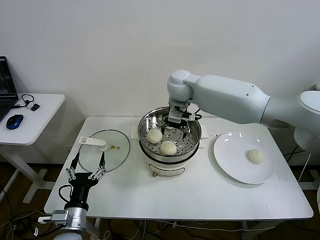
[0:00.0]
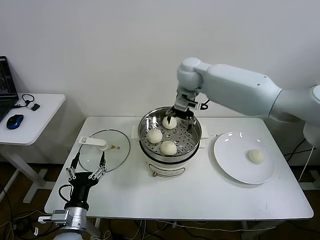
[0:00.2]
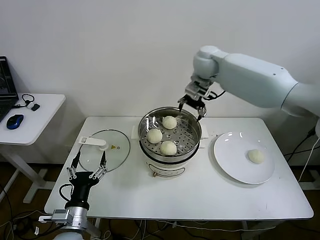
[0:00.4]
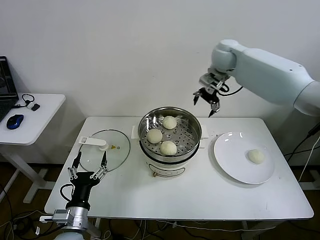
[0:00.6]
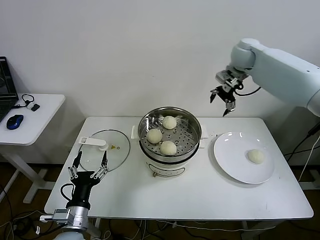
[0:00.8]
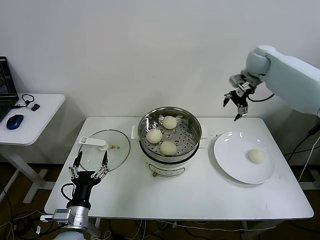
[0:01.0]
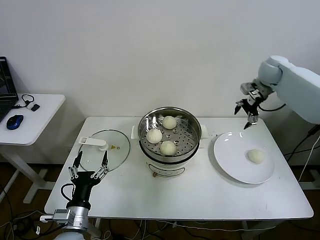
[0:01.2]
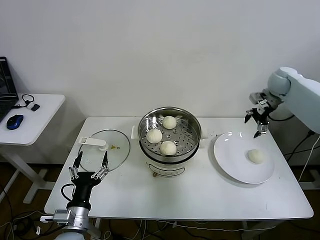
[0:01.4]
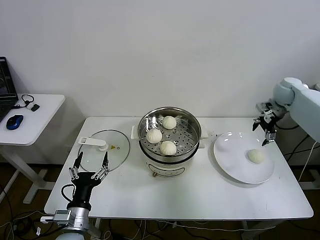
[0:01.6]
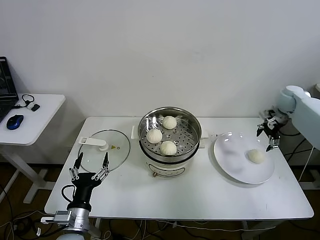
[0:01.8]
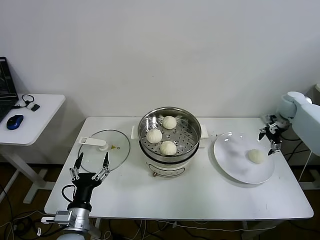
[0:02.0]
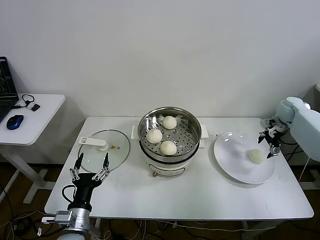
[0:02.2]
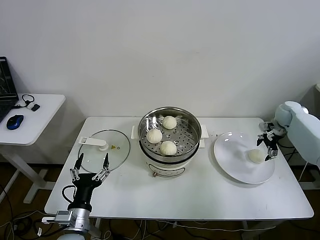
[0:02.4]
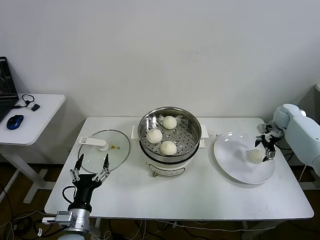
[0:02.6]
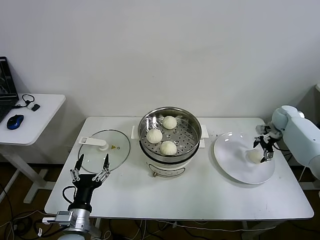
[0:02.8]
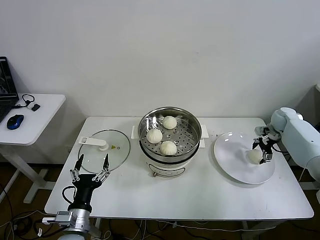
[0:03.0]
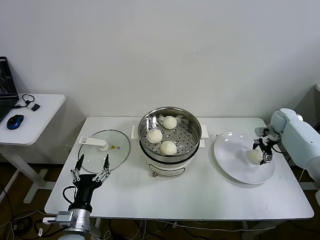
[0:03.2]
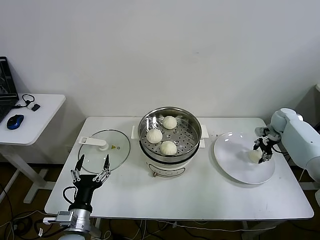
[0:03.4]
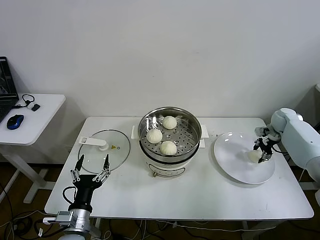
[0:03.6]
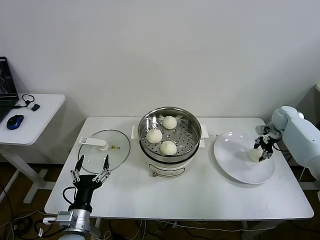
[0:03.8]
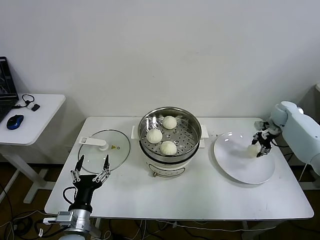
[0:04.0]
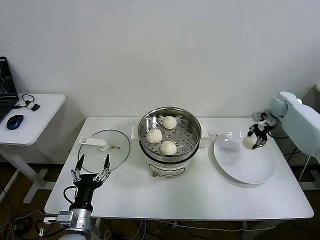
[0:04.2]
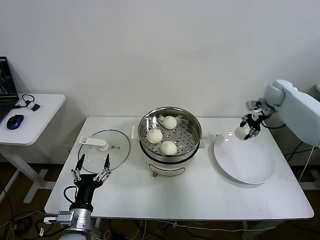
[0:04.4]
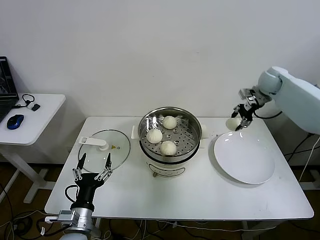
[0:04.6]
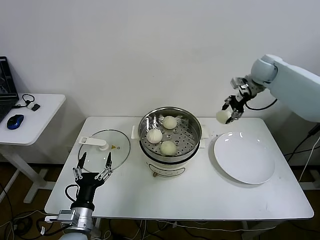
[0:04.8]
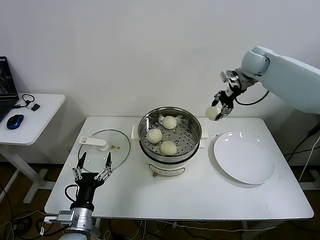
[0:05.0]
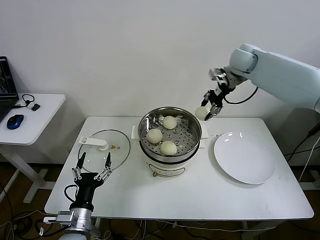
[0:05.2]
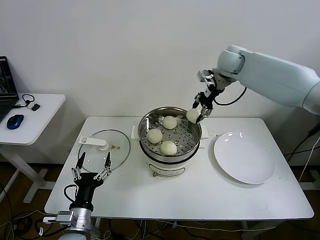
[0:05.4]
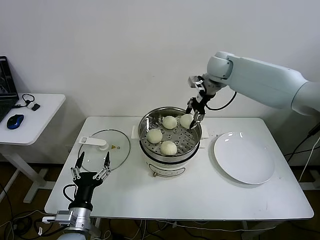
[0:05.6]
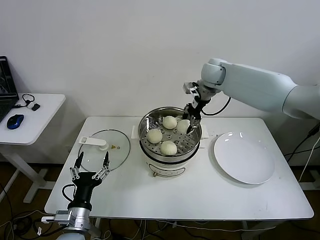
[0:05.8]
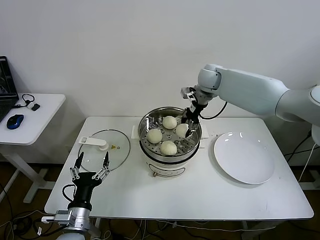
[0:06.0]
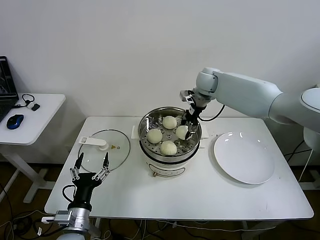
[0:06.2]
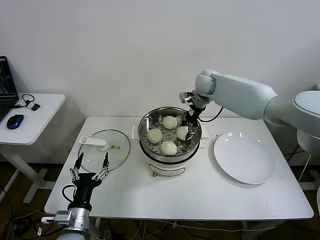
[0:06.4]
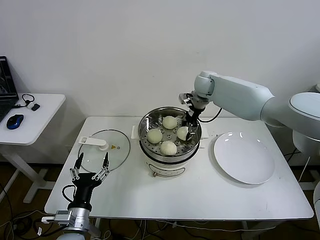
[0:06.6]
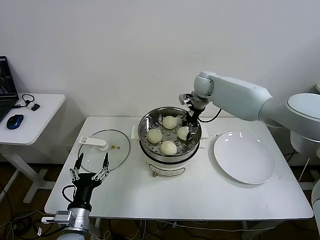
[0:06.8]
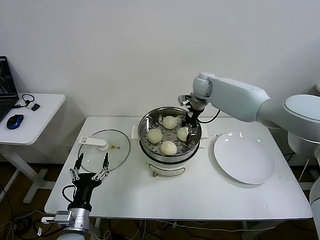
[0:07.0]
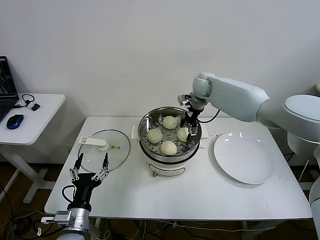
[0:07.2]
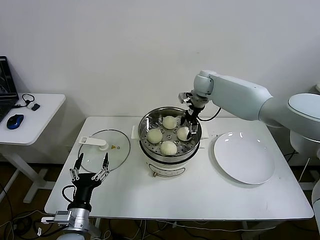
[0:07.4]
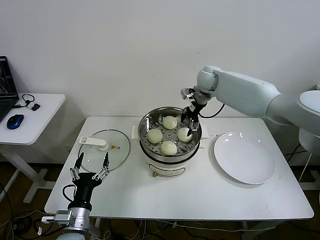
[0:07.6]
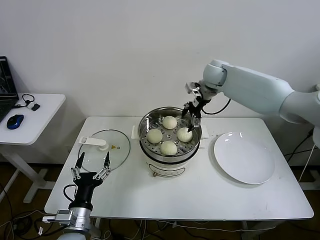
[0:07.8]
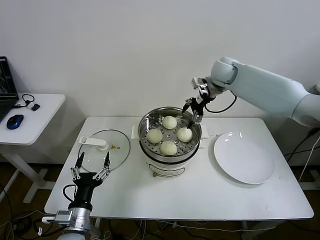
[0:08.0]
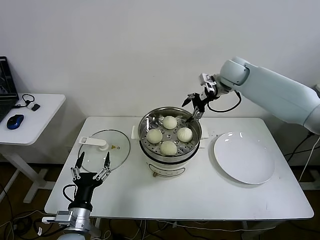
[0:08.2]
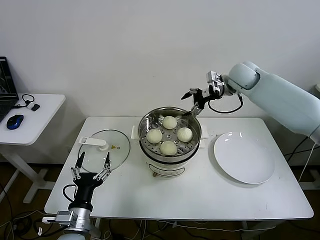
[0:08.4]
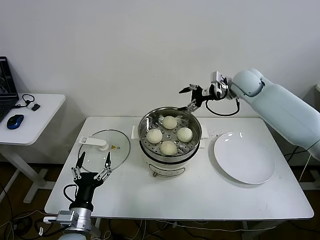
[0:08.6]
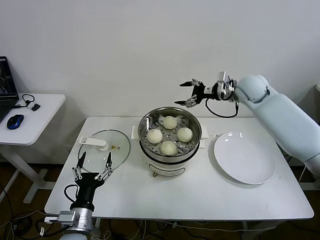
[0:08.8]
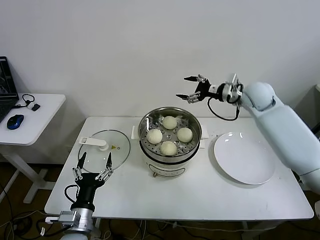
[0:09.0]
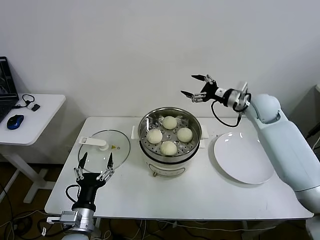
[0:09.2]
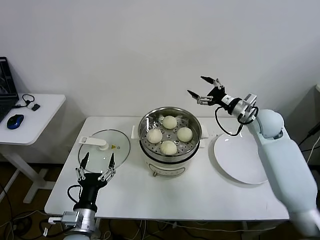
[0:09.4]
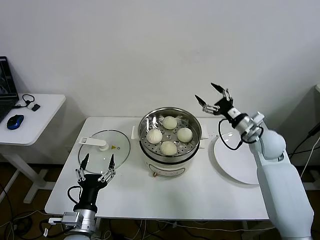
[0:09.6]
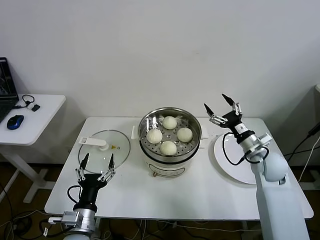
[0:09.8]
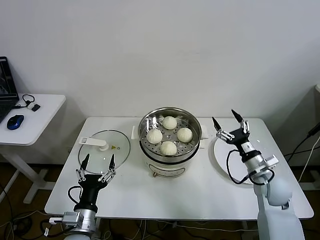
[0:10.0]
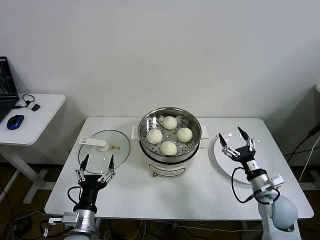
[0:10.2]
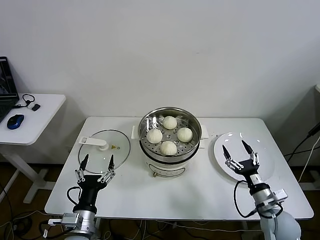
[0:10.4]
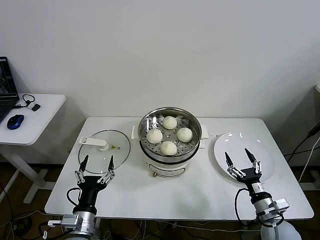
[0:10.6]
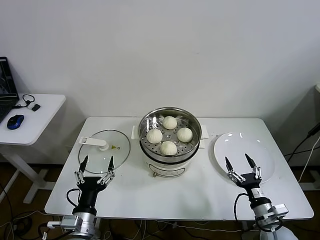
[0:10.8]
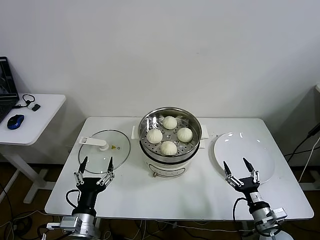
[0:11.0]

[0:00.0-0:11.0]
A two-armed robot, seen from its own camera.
Task of the whole recording: take steamed baozi put them in steamer.
Step, 0:00.0 to 0:03.6: Grasp the baozi in the plate with right gripper.
Step, 0:03.8 to 0:07.2: Place the baozi on the steamer with right gripper.
0:00.0 to 0:01.6: The right gripper shifts about 40 cm to the right.
0:01.6 to 0:03.2: The right gripper goes approximately 15 cm downward.
0:03.2 to 0:04.8: The right gripper travels upward and to the left by about 25 cm, and closes.
0:04.8 to 0:06.2: The right gripper shifts approximately 20 cm to the left.
0:06.2 to 0:07.8: The right gripper opens up.
0:07.8 to 0:09.4: The right gripper moves backward, to the right and downward, about 20 cm.
0:09.4 to 0:11.0: The right gripper moves backward and downward, some 40 cm.

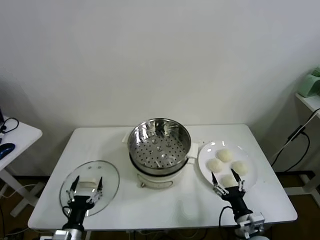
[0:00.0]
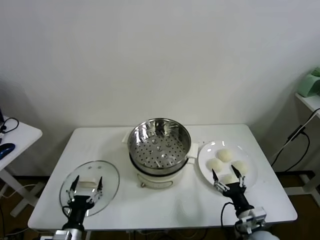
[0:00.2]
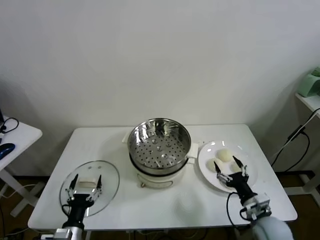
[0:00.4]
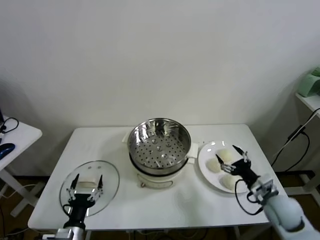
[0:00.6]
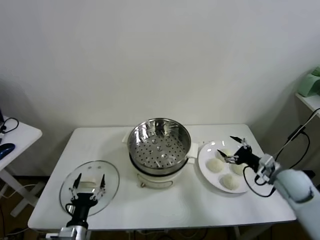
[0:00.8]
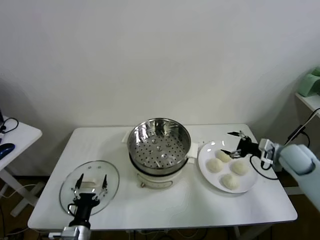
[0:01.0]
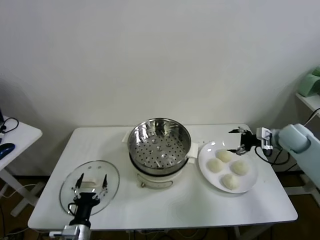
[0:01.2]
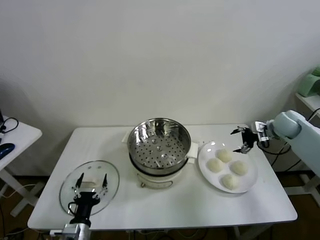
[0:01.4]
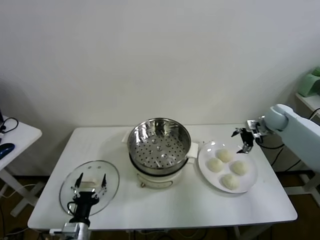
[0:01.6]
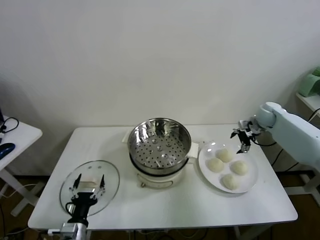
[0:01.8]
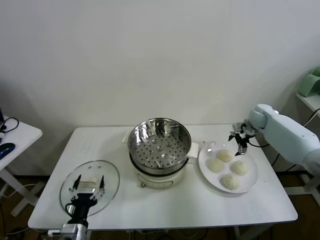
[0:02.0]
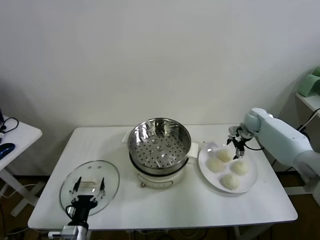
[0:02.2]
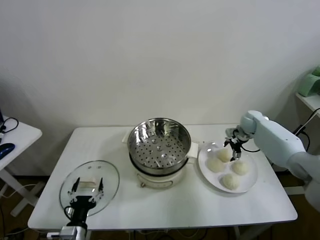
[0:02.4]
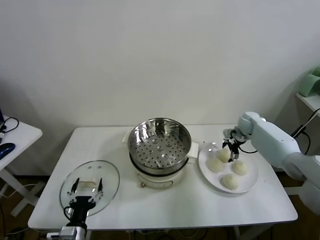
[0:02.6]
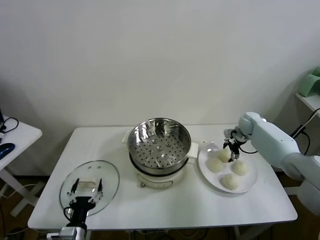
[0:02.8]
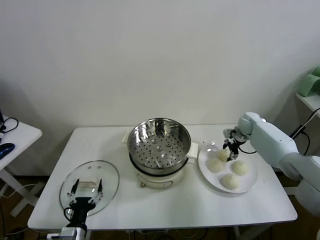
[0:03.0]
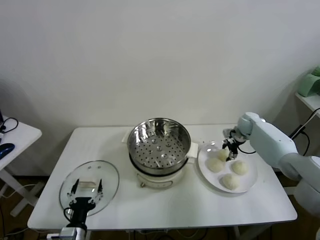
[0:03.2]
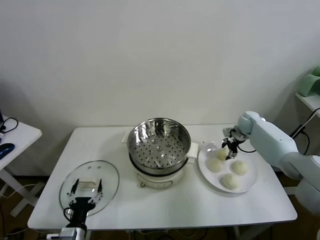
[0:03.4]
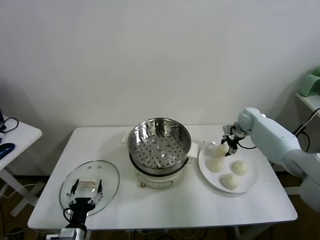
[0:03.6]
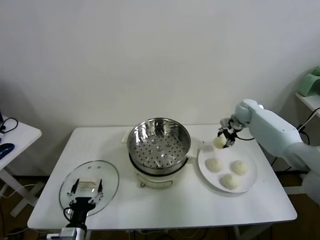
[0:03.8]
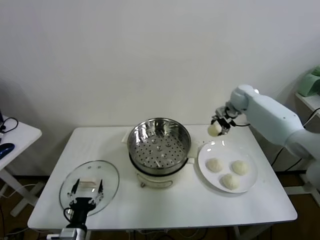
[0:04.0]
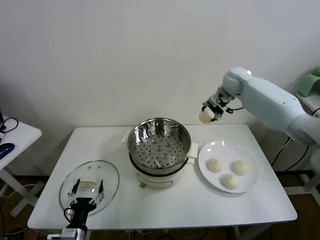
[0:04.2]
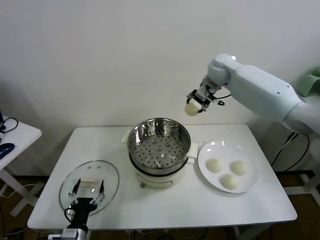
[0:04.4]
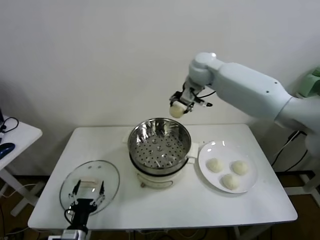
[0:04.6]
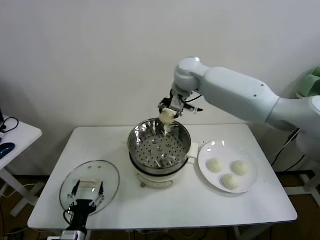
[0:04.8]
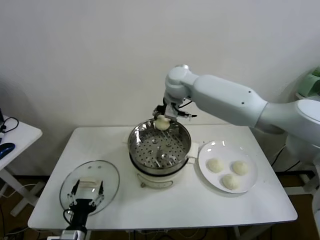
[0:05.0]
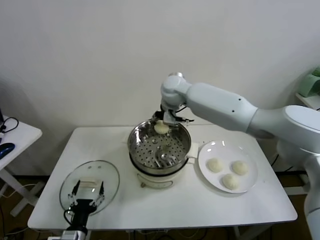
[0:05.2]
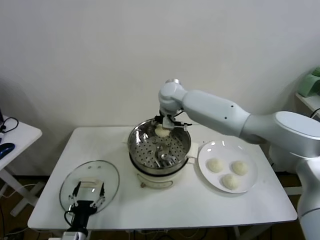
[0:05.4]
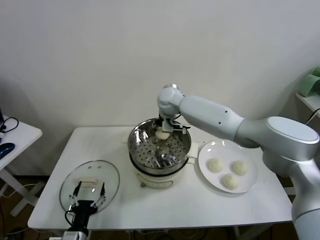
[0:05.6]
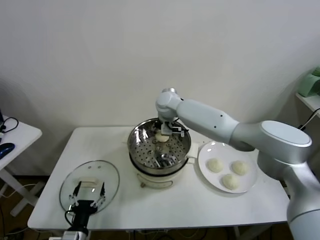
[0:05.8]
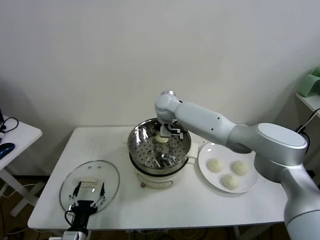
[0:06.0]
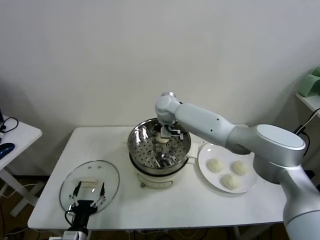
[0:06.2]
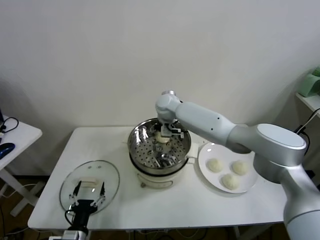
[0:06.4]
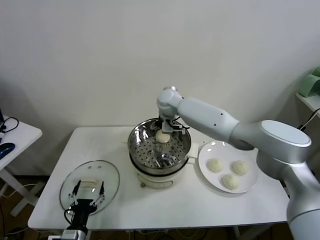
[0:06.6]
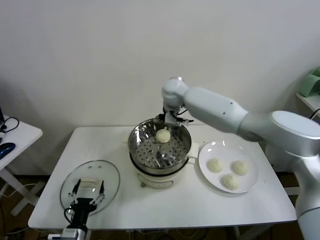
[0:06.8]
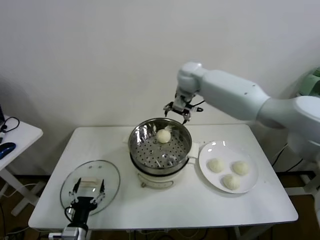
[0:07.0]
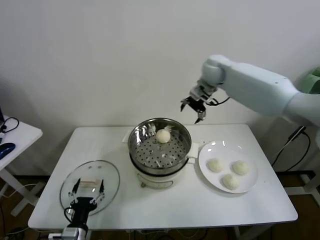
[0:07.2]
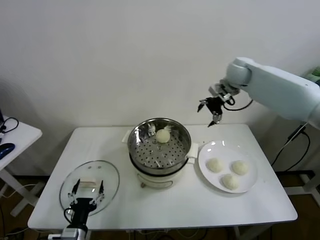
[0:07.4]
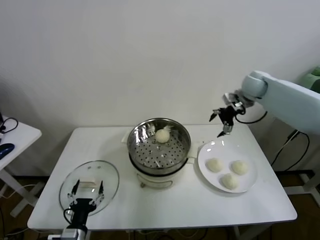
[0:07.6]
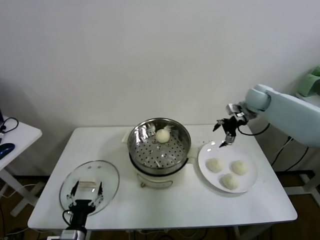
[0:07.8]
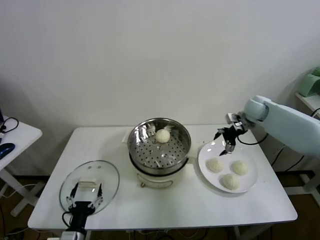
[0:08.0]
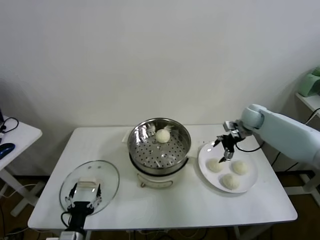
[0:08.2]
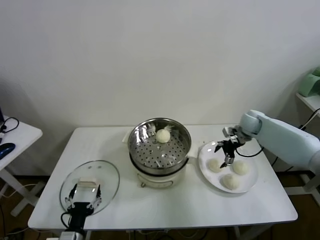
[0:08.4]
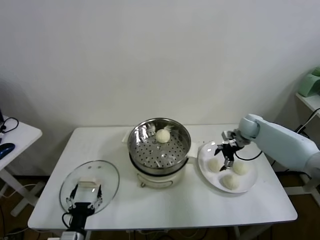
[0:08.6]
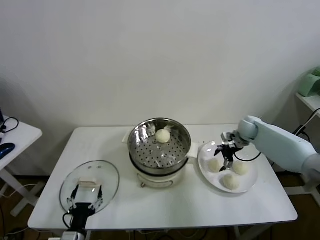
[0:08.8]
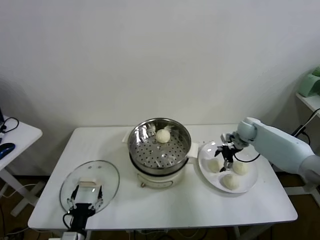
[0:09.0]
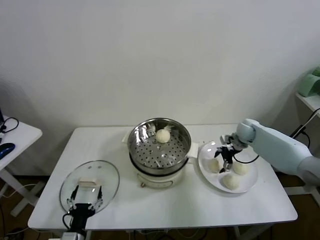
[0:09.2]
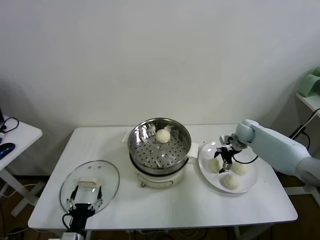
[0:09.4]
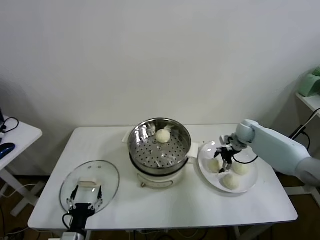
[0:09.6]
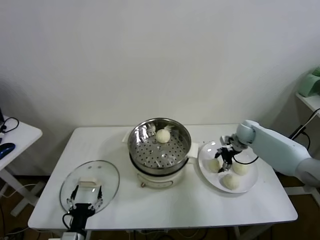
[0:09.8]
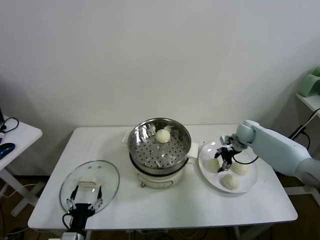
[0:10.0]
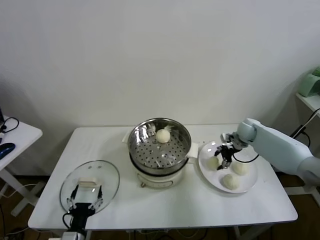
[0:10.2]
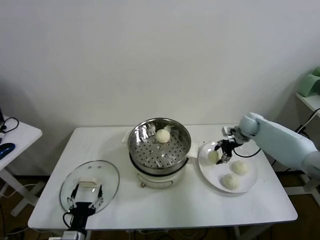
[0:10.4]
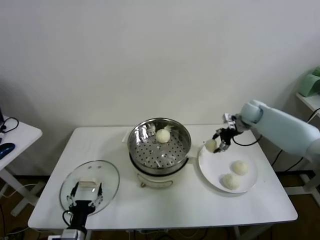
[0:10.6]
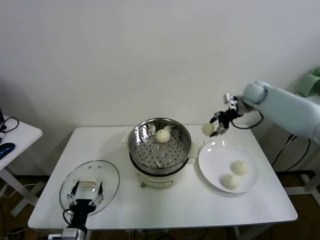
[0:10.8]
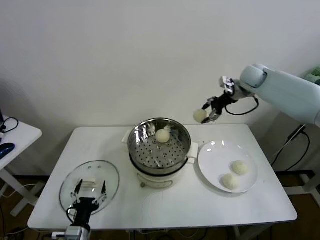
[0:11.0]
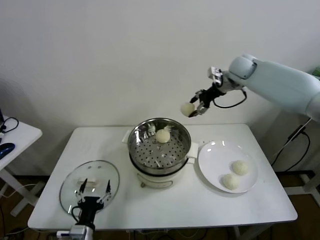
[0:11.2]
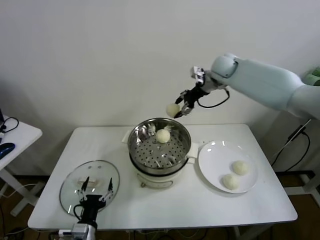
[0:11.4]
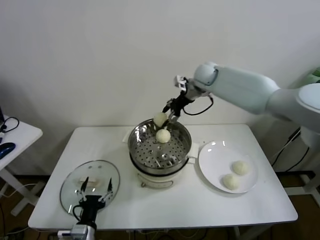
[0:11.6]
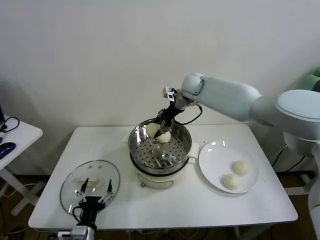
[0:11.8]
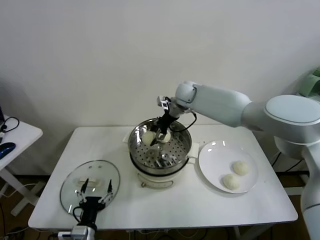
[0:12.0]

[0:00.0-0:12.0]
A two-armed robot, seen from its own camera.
Task of the whole recording: take steamed baozi put them in steamer.
Step, 0:00.0 to 0:02.8: Grasp the baozi in the plate with right gripper.
Step, 0:03.0 to 0:06.4: Place the baozi on the steamer with right gripper.
Step, 0:06.6 to 0:09.6: Grasp the baozi in the plate with right gripper.
0:01.6 to 0:03.0: The right gripper is displaced downward by about 10 cm, and closes up.
0:03.0 to 0:04.4: The right gripper shifts roughly 35 cm upward and to the left.
0:04.4 to 0:06.0: The right gripper travels downward and to the left by some 20 cm.
0:06.0 to 0:07.6: The right gripper is displaced to the right by approximately 30 cm, and opens up.
0:07.6 to 0:09.0: The right gripper goes some 20 cm downward.
0:09.0 to 0:10.4: The right gripper closes.
0:10.4 to 0:12.0: The right gripper goes roughly 25 cm to the left.
